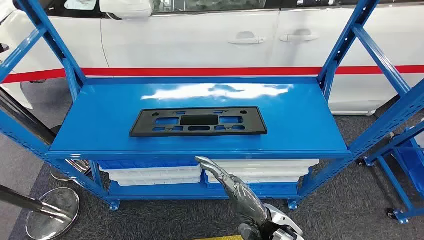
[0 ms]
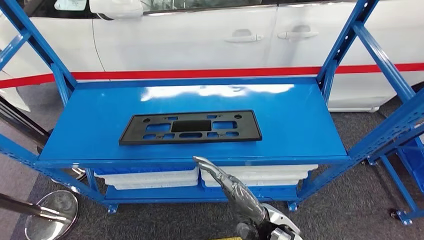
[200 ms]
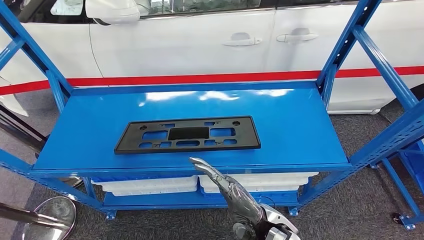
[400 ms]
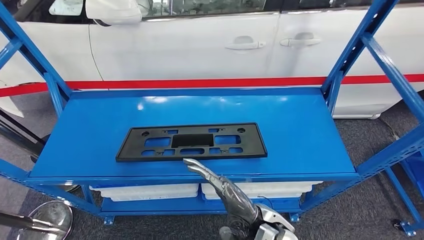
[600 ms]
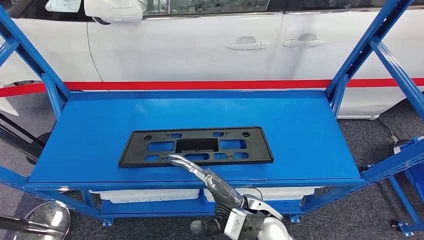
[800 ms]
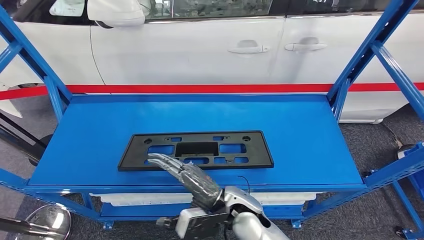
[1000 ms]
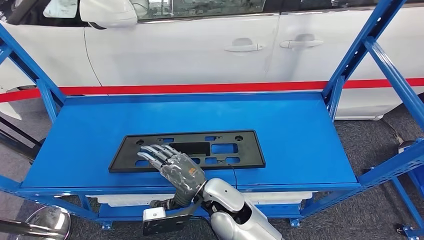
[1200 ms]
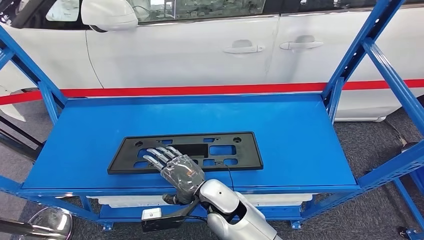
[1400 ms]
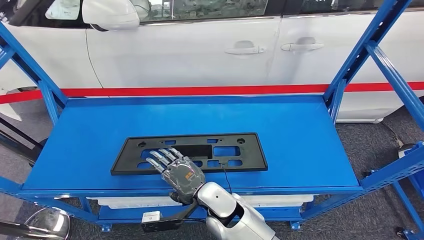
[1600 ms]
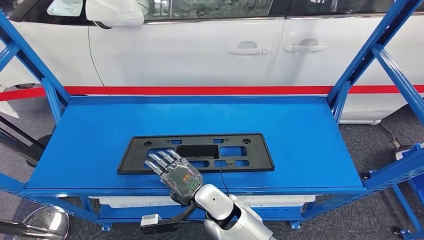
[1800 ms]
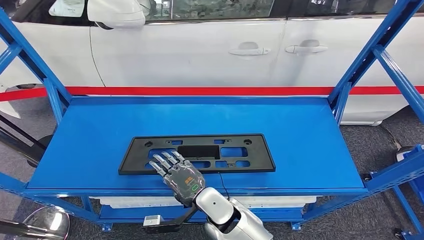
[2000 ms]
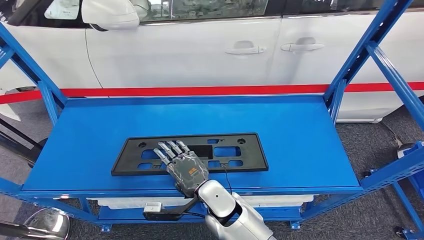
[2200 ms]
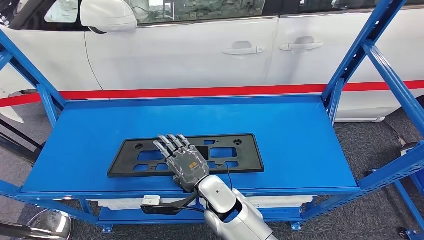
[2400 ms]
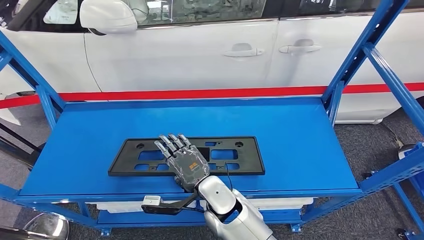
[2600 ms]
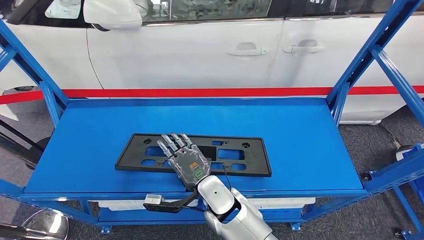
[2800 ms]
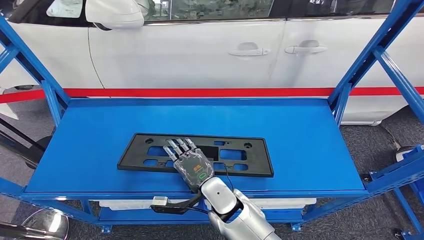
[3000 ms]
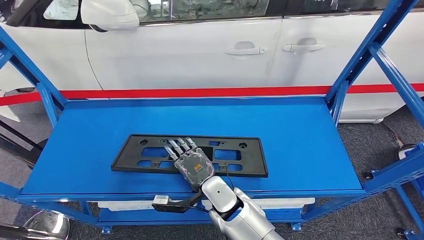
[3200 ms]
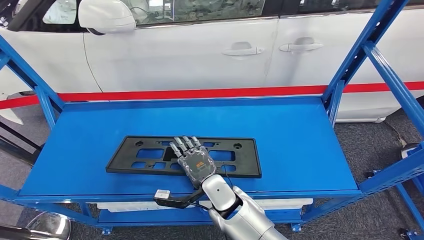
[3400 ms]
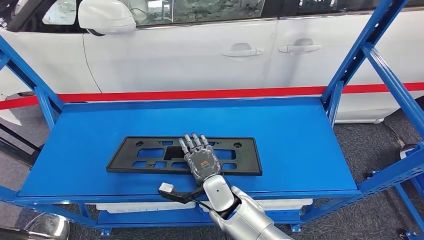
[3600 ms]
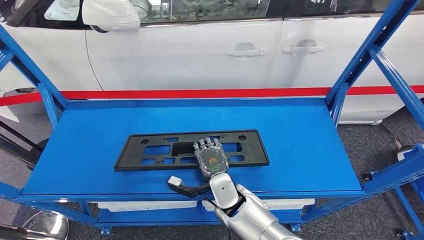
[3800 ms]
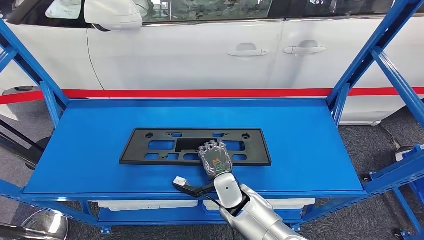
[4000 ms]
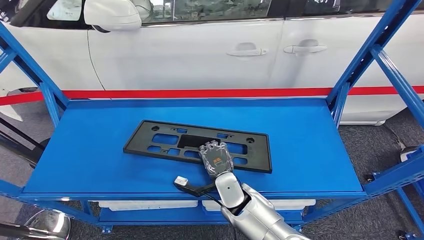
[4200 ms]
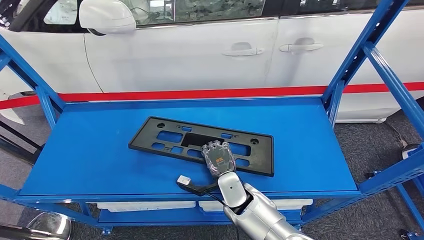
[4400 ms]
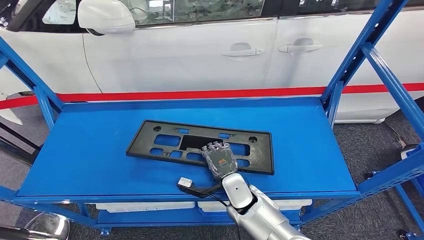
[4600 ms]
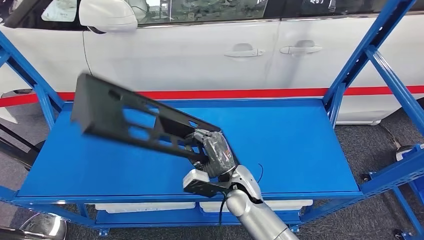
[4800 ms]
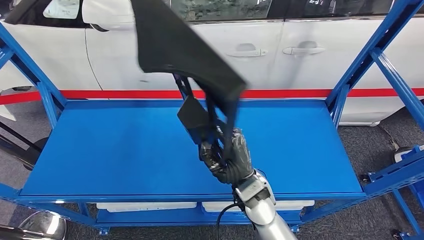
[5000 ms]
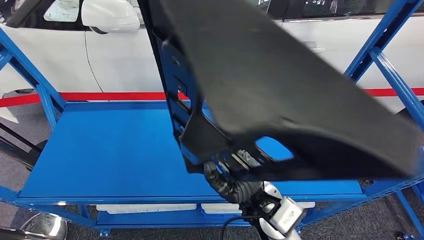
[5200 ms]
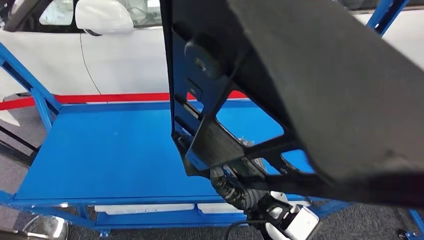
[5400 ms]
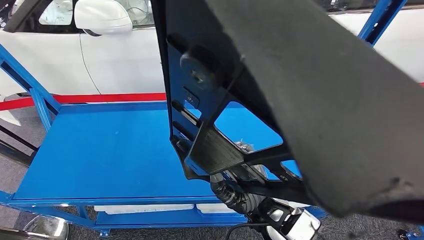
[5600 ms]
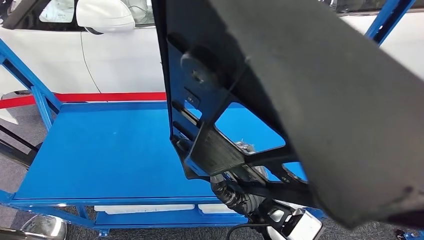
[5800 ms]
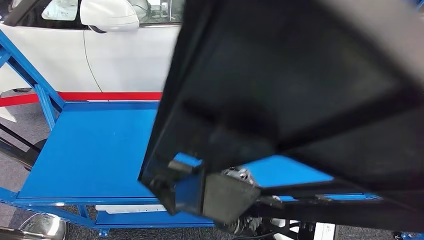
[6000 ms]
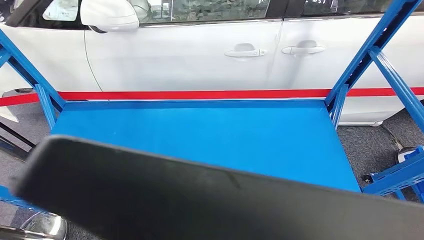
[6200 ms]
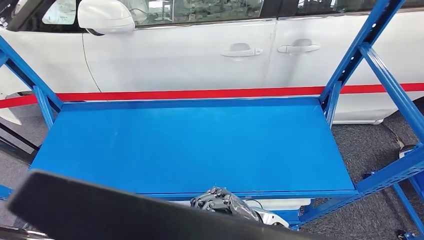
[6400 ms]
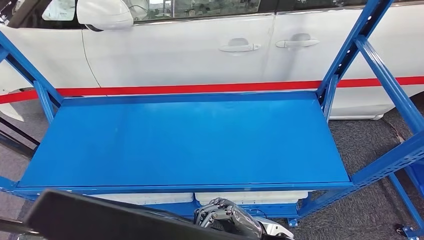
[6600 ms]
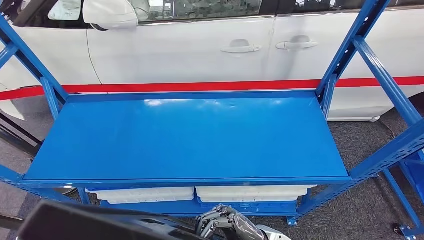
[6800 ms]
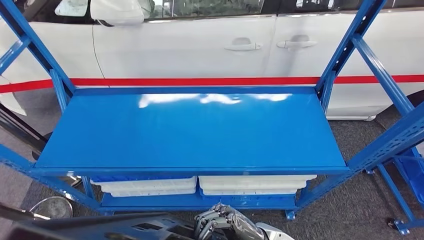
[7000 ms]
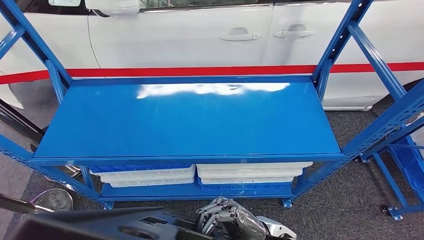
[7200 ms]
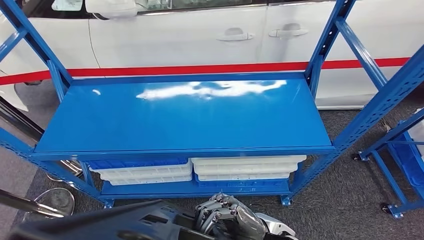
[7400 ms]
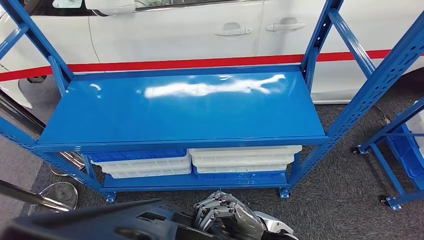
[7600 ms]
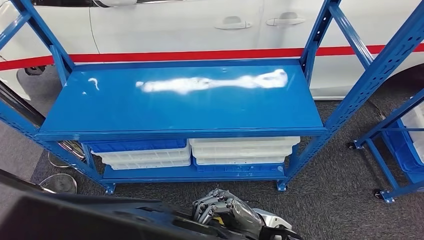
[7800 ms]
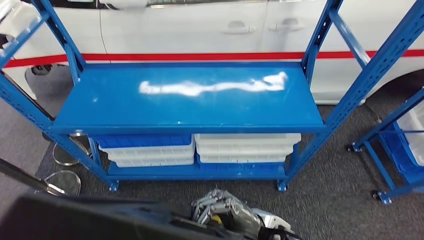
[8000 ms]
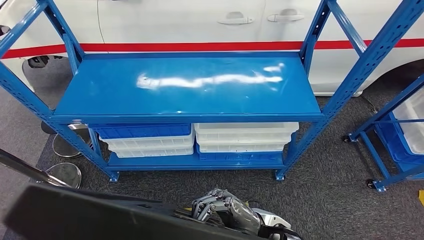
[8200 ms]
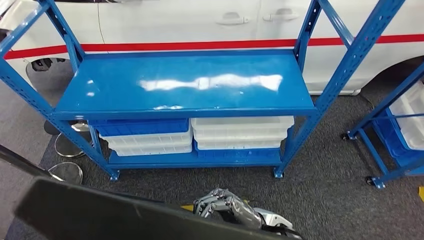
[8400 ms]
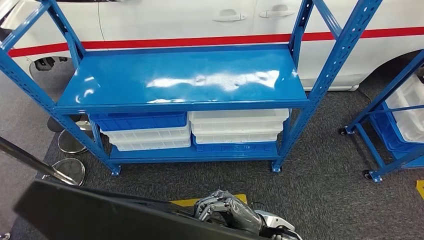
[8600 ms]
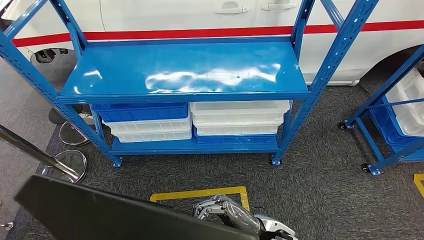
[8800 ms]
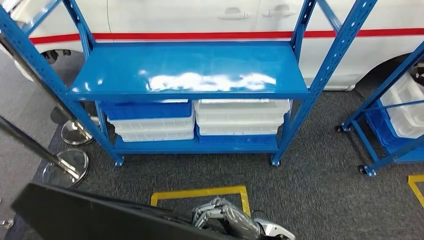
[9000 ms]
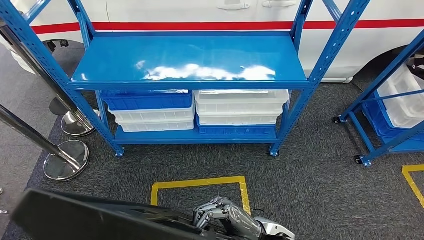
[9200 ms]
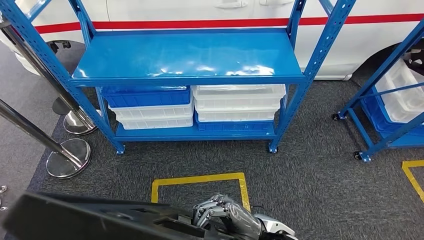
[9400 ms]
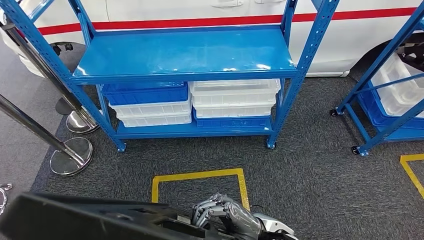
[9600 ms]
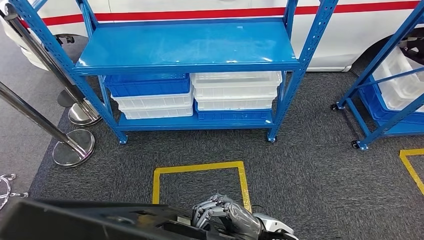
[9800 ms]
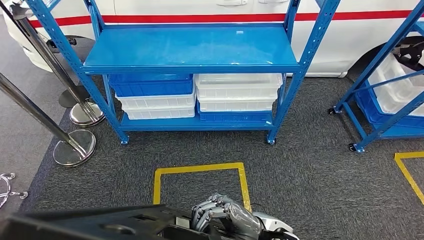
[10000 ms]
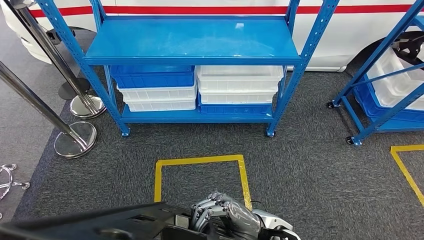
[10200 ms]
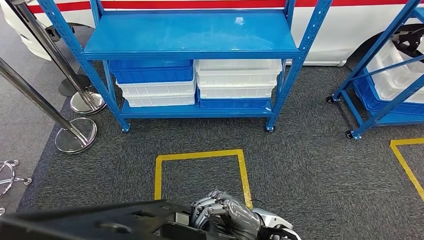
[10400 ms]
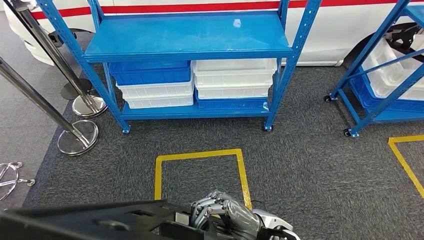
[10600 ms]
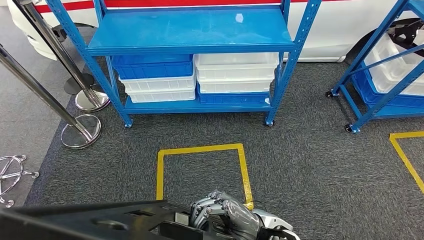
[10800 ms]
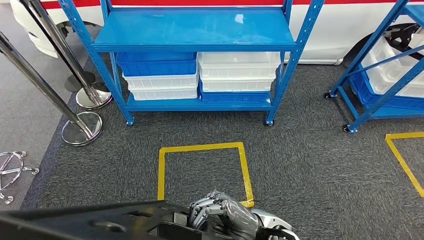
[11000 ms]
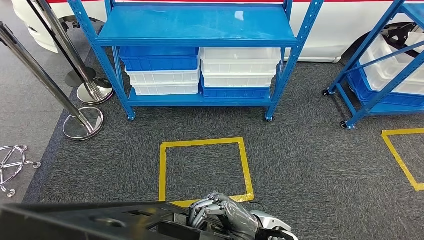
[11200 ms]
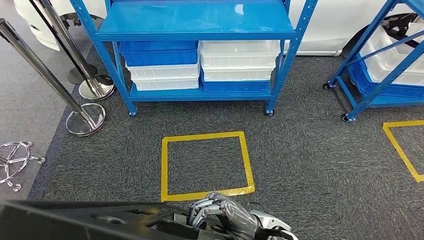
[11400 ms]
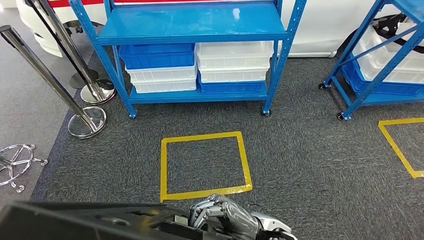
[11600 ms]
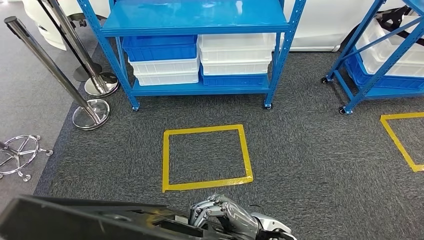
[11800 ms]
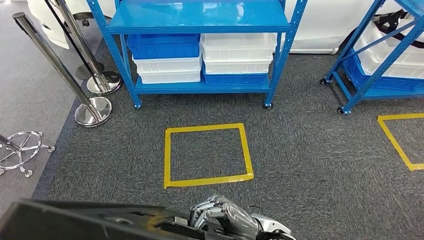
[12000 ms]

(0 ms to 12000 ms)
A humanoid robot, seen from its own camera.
Step, 0 ms - 7800 ms: Pick up the large material from the shelf.

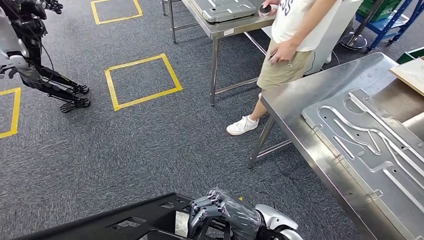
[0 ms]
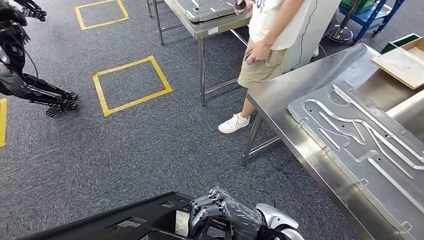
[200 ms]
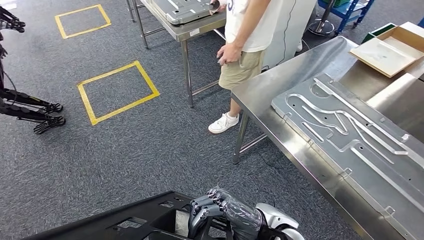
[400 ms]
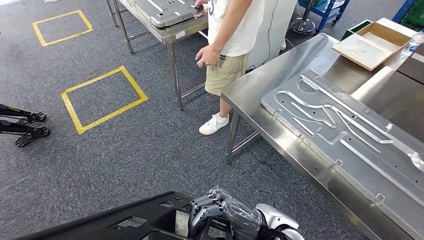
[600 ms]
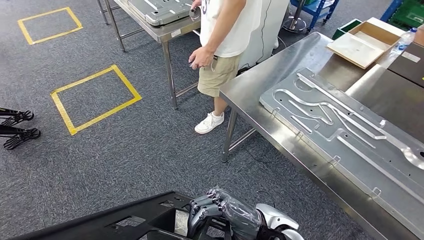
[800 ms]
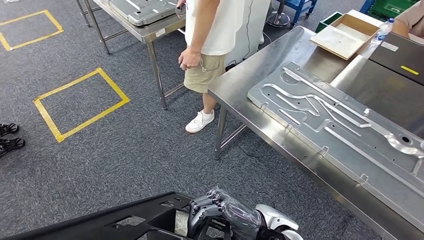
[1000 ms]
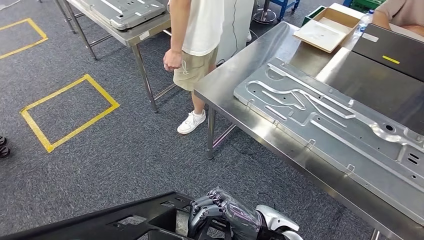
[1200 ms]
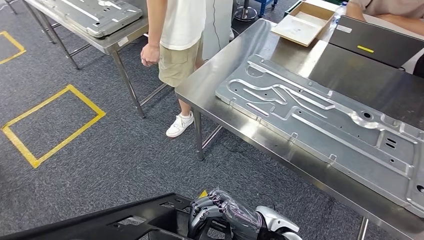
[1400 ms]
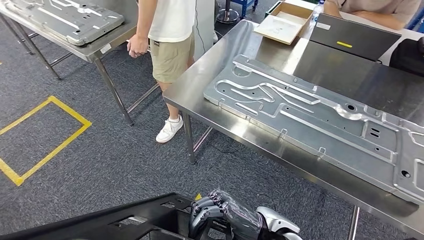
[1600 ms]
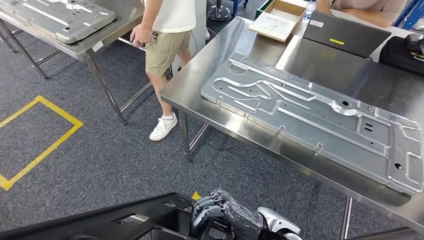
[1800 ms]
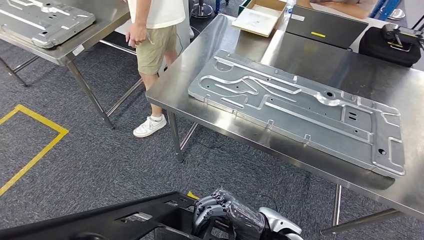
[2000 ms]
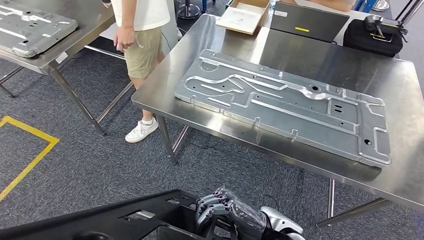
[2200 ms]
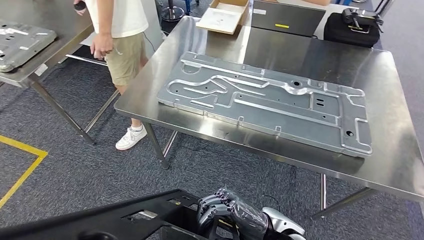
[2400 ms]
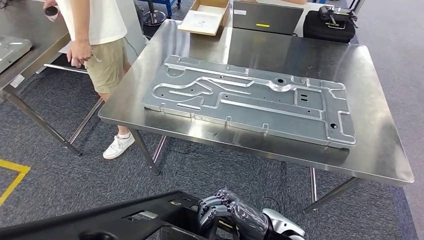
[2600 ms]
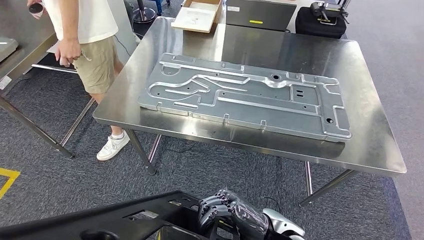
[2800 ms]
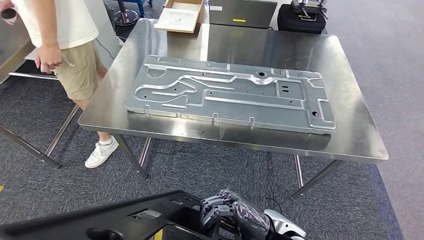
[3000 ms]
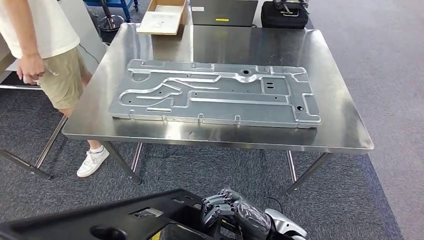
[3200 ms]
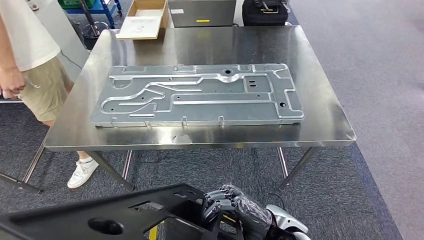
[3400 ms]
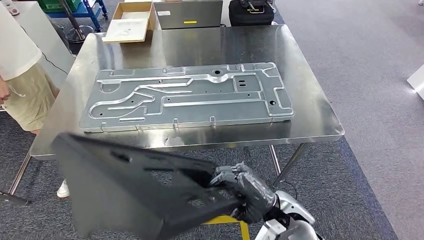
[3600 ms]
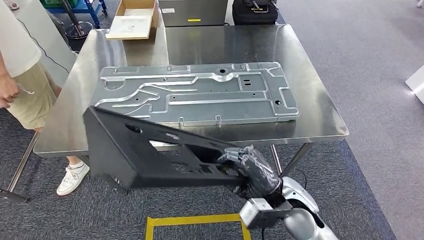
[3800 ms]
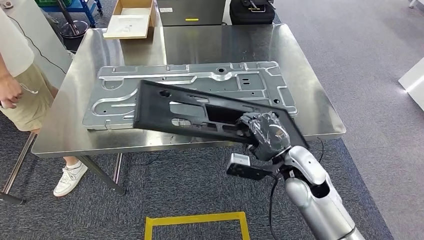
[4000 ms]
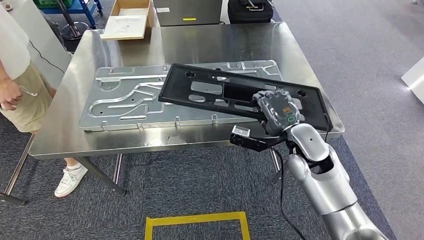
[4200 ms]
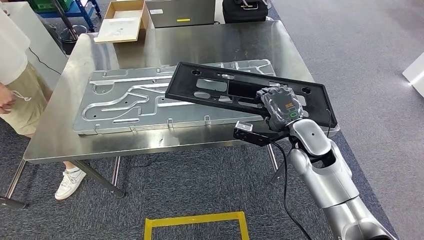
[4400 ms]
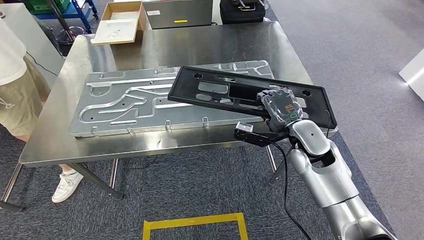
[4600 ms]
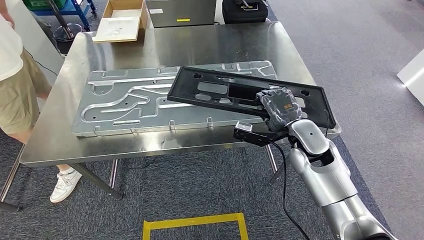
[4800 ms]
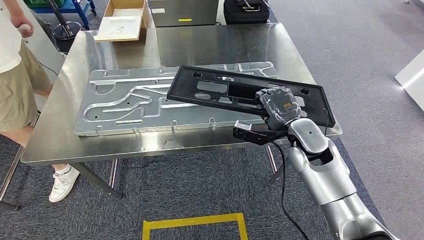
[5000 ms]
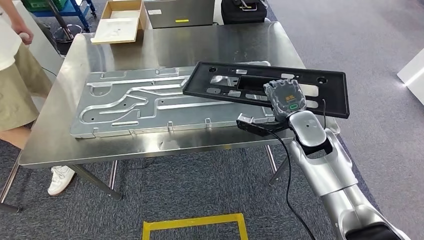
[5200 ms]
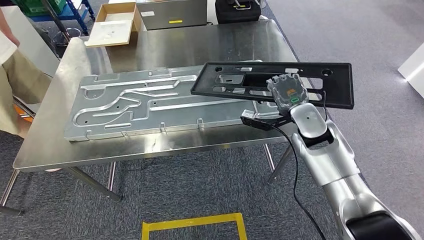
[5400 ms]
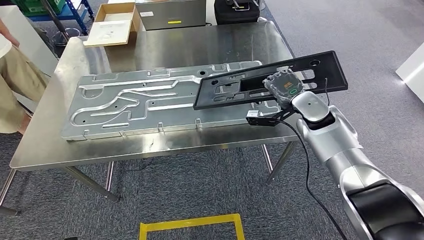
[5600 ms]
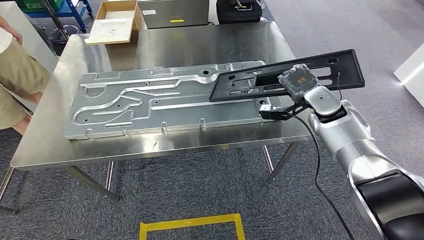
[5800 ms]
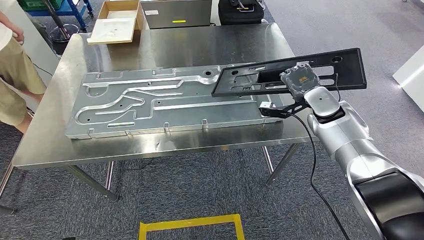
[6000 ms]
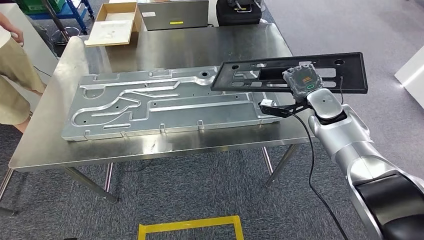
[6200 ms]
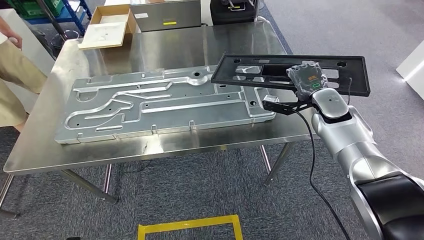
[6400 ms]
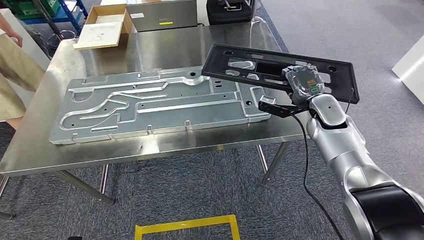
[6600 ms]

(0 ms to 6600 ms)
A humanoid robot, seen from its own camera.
Step, 0 ms - 3600 ms: Move the large material to the front of the workbench.
